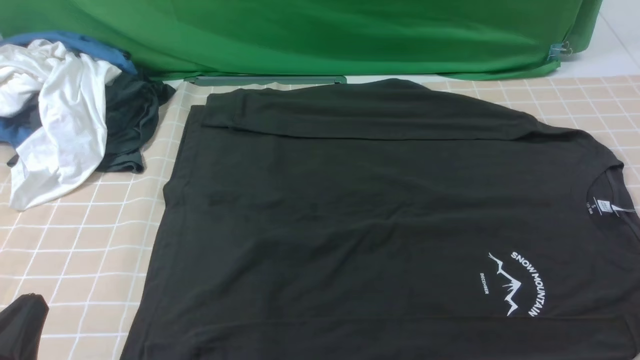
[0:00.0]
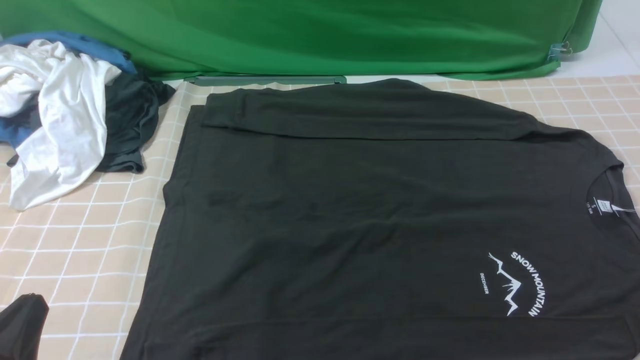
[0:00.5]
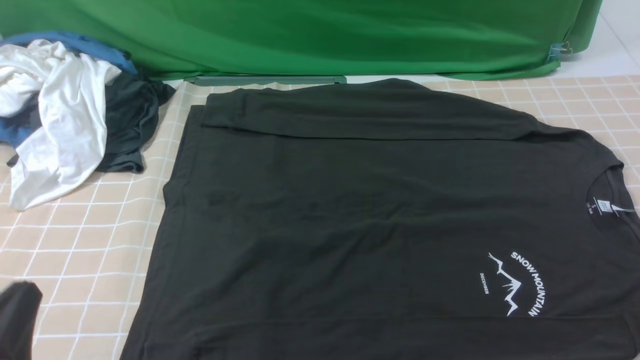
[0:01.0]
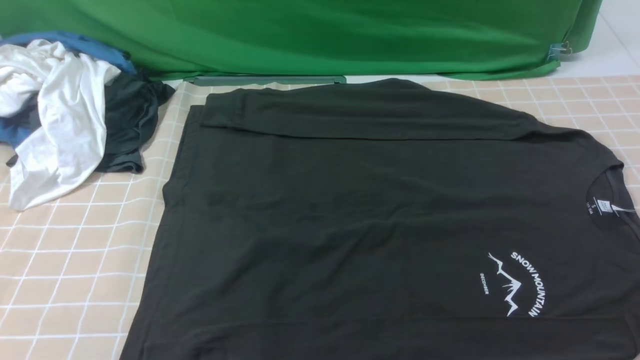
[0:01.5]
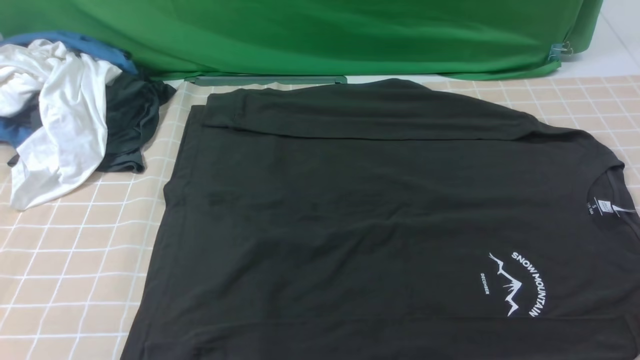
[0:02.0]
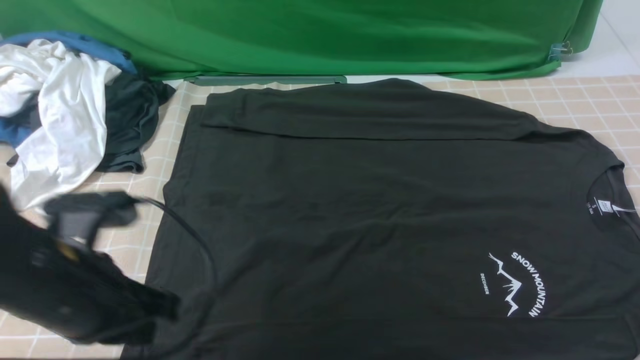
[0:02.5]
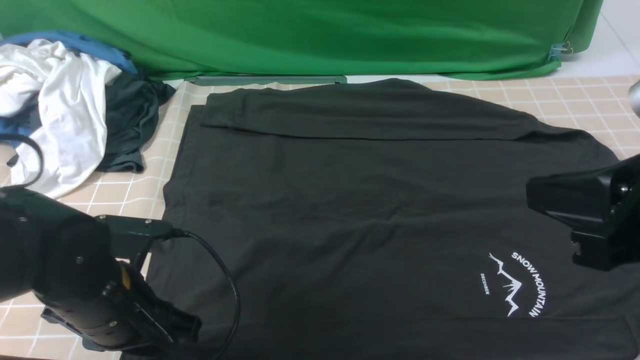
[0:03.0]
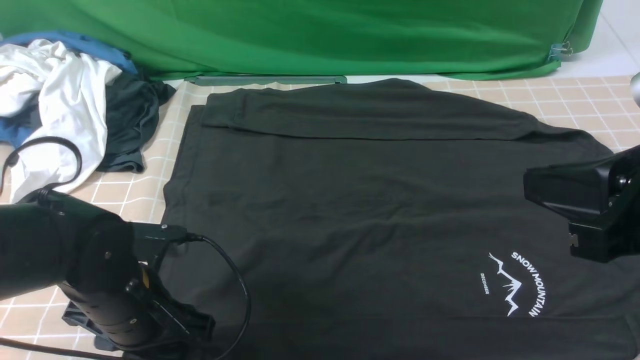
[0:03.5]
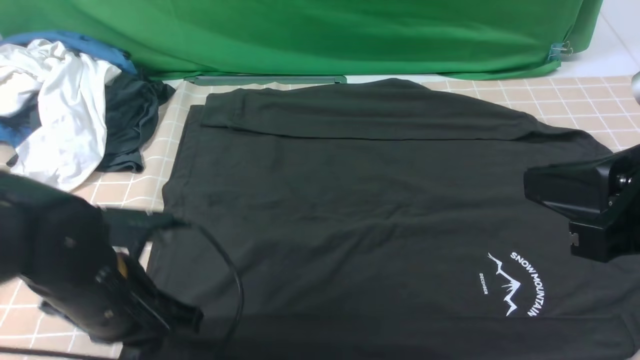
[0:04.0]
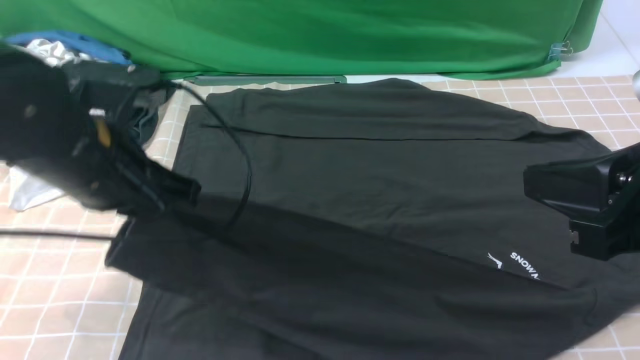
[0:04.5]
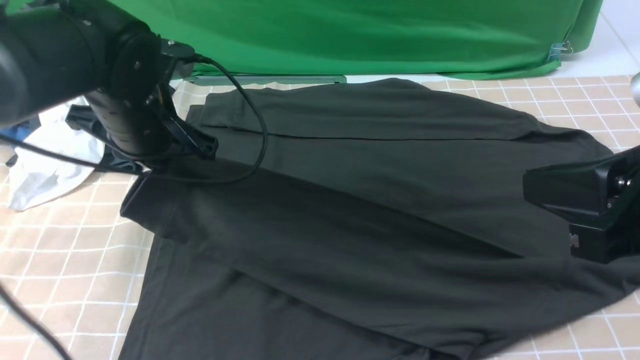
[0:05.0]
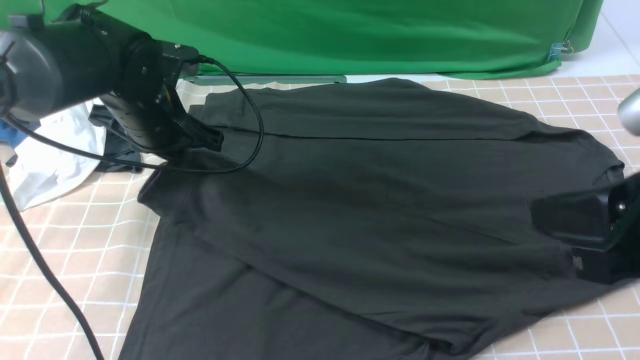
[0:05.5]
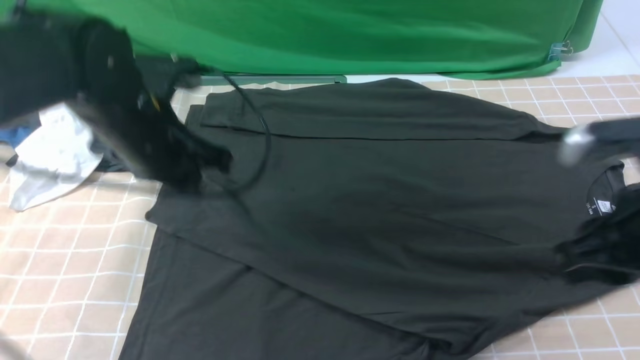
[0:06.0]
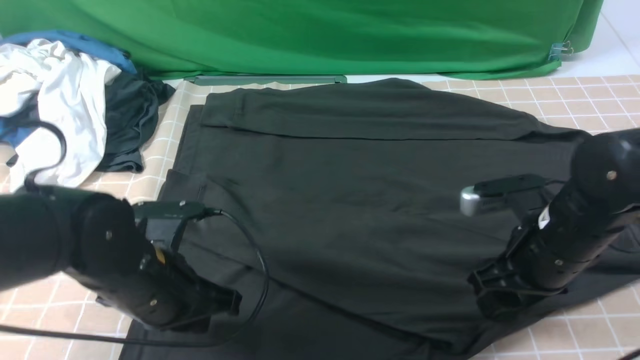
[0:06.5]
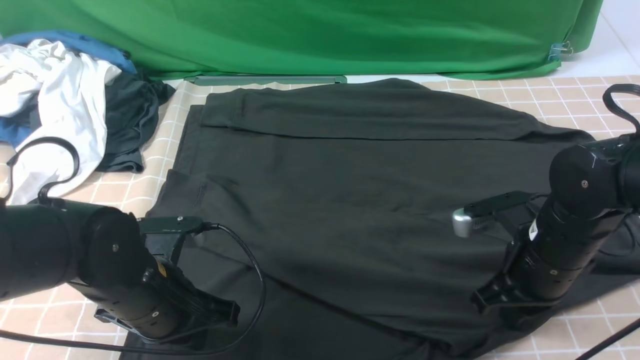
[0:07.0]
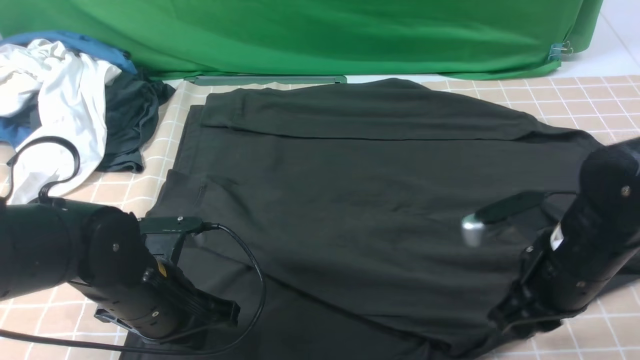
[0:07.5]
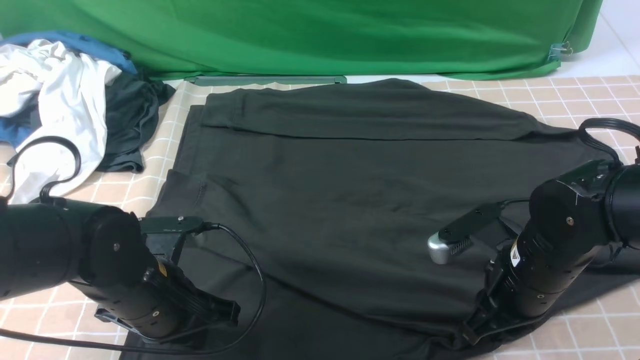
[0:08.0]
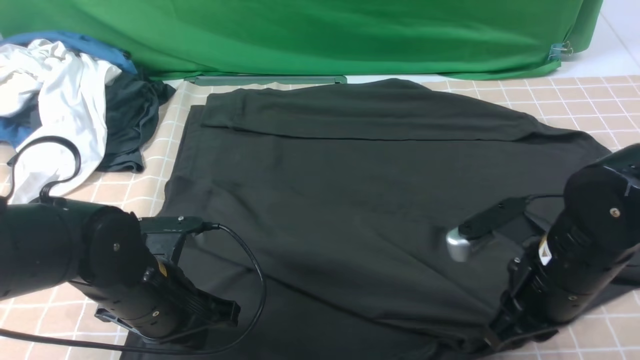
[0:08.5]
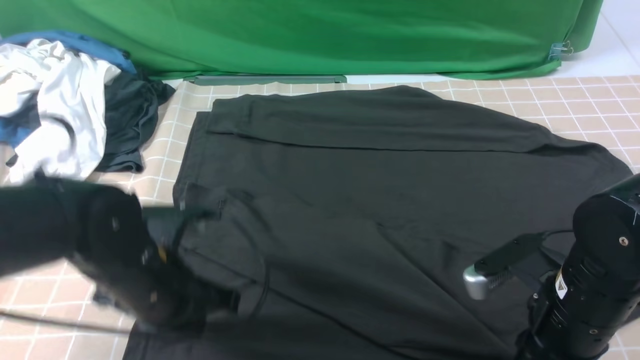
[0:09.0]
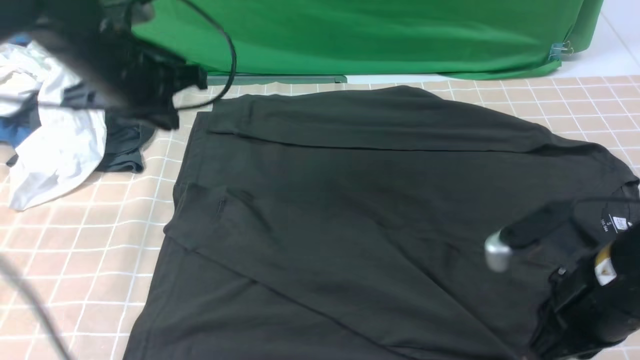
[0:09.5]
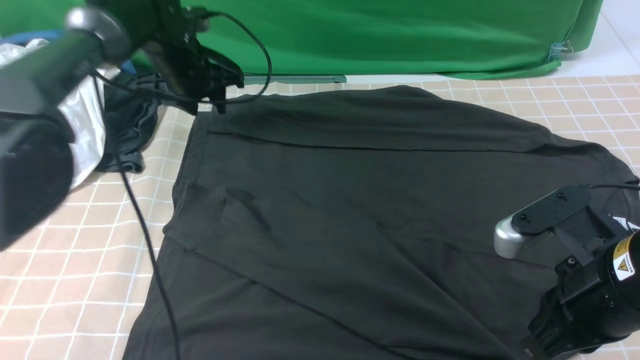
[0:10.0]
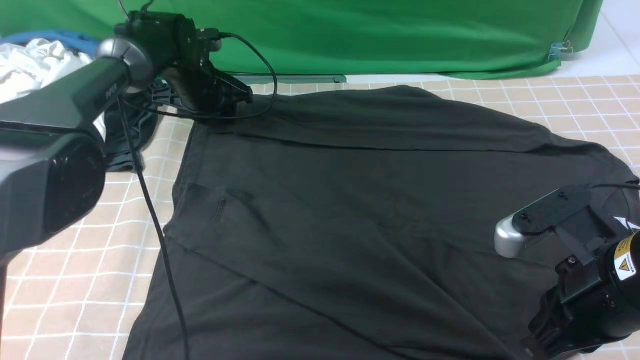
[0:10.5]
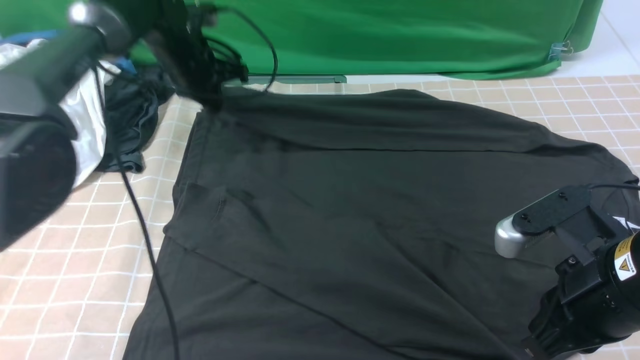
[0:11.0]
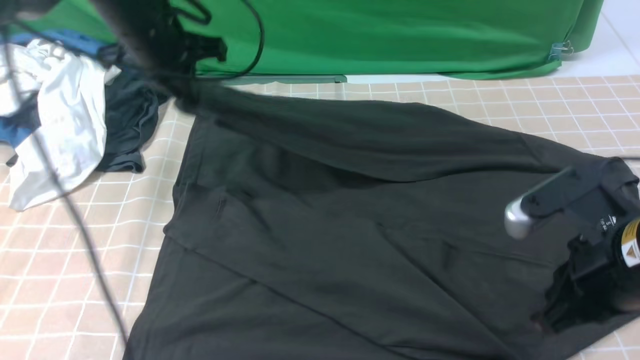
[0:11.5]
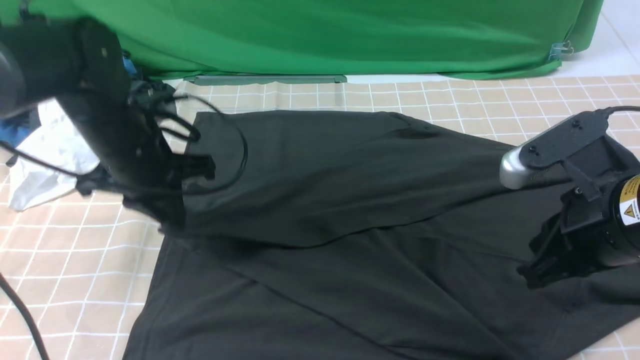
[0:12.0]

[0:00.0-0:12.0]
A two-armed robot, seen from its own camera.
Step, 0:00.0 to 0:03.5: use the left arm to clamp the cuff closest to it.
Step, 0:04.0 to 0:06.0: use the left arm to drag and place the cuff at the centered position on the left edge of the fabric.
Step, 0:06.5 to 0:10.5: use the left arm to clamp the cuff farthest from it.
0:00.0 to 0:02.0: The left gripper goes approximately 15 cm upward.
0:02.0 to 0:04.0: The left gripper is displaced downward, forward and to the right by about 20 cm, and opens, then closes again; the right gripper moves to the left, forward and upward, some 15 cm.
0:04.0 to 0:06.0: The right gripper goes about 10 cm downward and forward, and opens. The left gripper goes approximately 10 cm forward.
0:06.0 to 0:08.0: The right gripper moves downward and to the left, approximately 15 cm, and opens, then closes once more. The left gripper heads backward and downward, covering some 15 cm.
0:08.0 to 0:10.0: The right gripper heads upward and backward, covering about 10 cm, while the left gripper moves forward, roughly 30 cm, and opens its fingers.
0:10.0 to 0:12.0: The left gripper goes roughly 15 cm backward, and closes up.

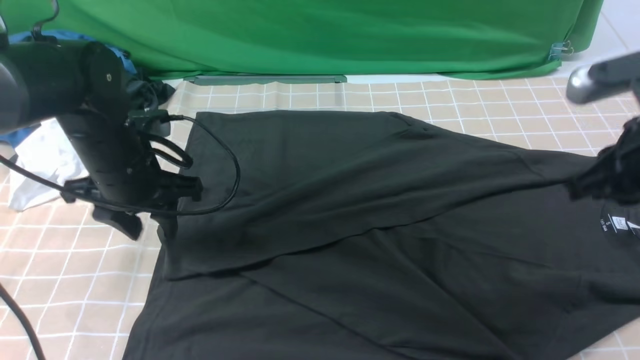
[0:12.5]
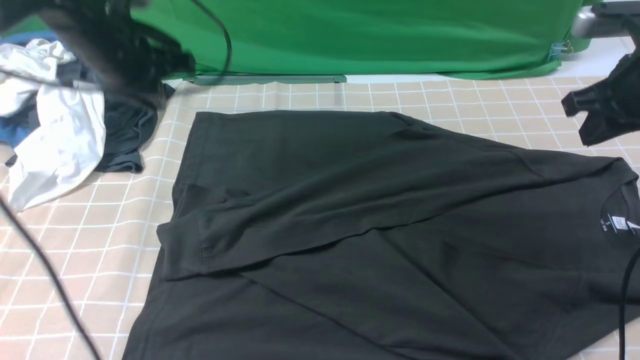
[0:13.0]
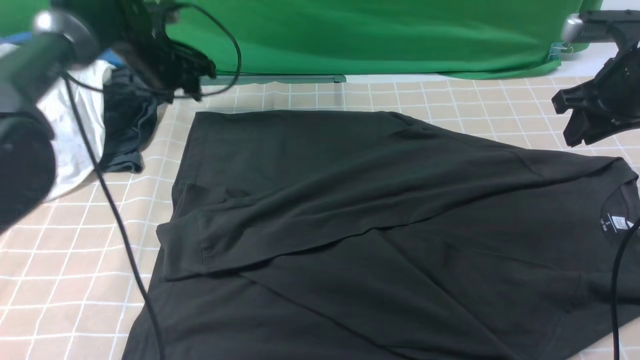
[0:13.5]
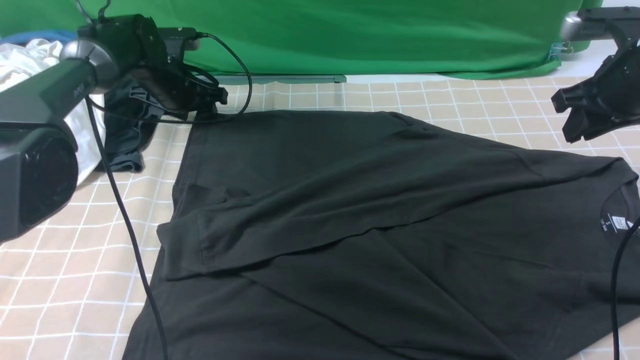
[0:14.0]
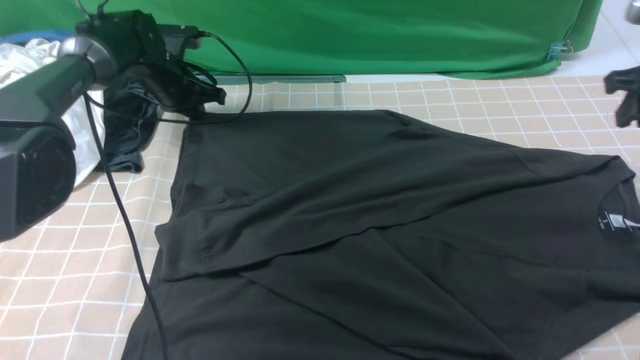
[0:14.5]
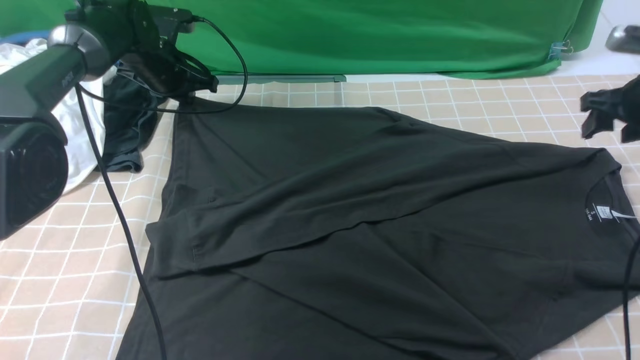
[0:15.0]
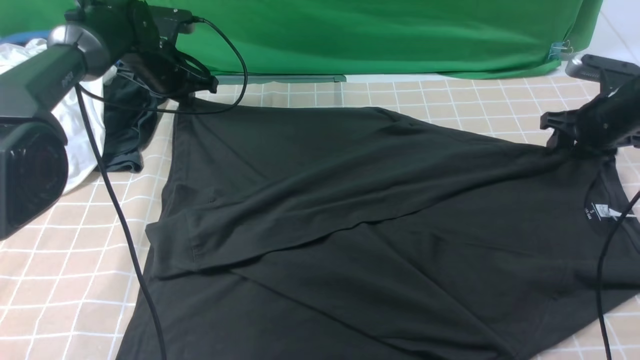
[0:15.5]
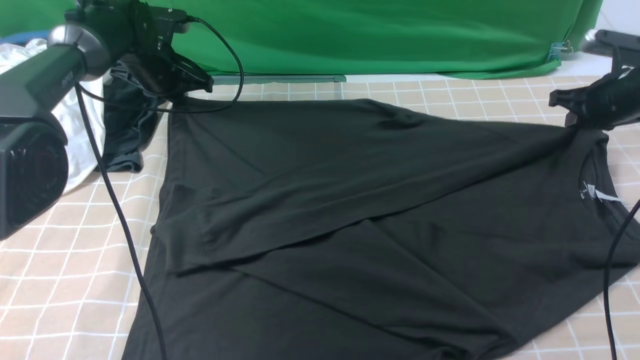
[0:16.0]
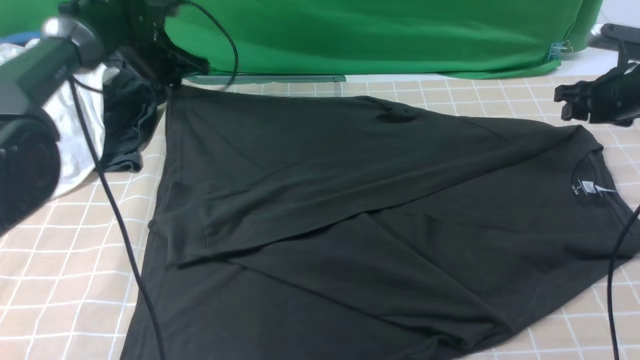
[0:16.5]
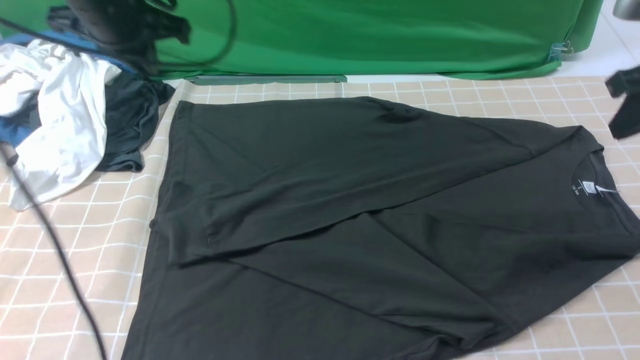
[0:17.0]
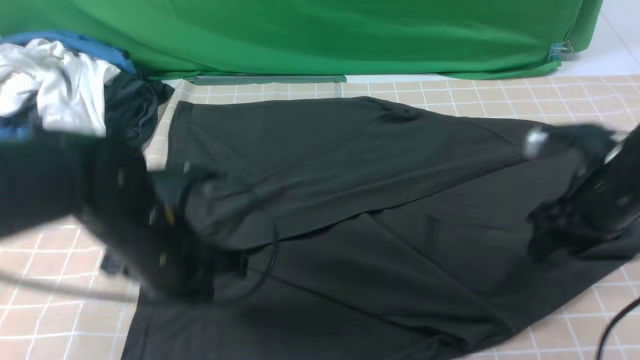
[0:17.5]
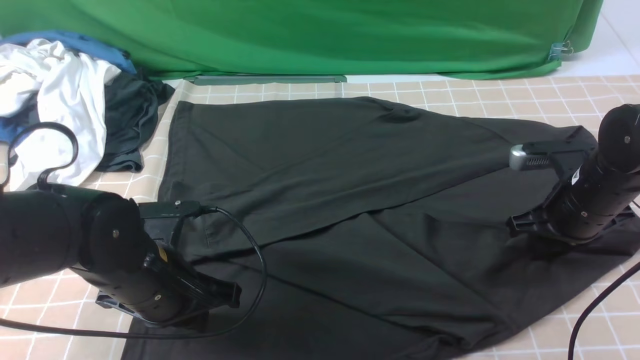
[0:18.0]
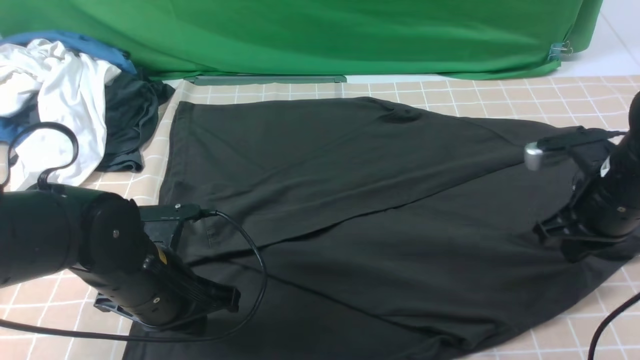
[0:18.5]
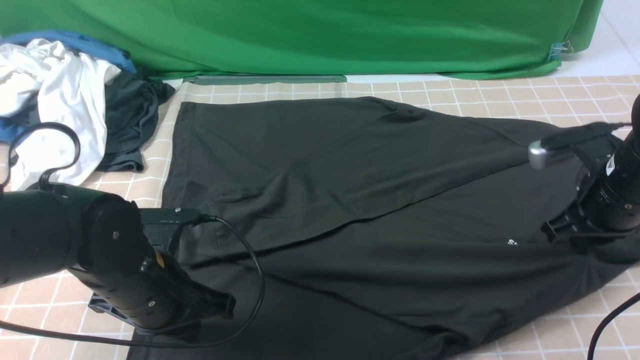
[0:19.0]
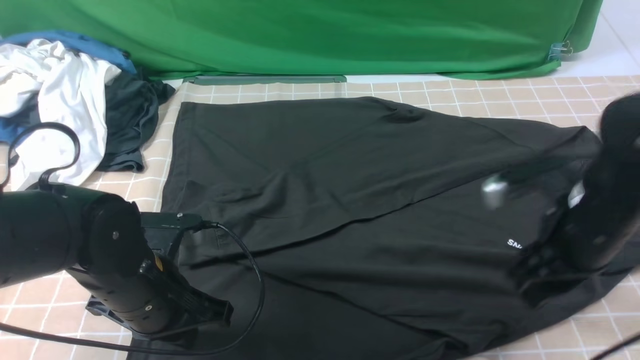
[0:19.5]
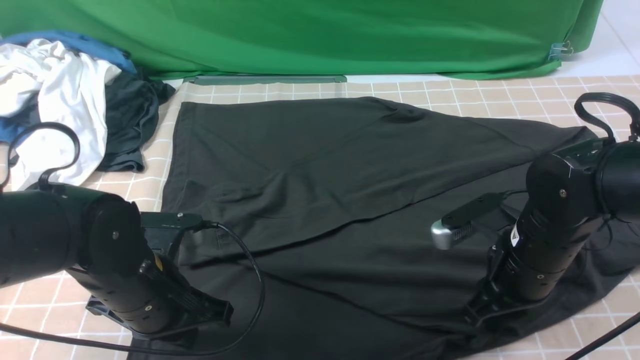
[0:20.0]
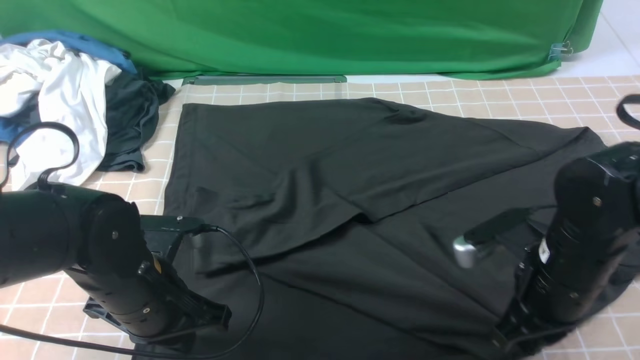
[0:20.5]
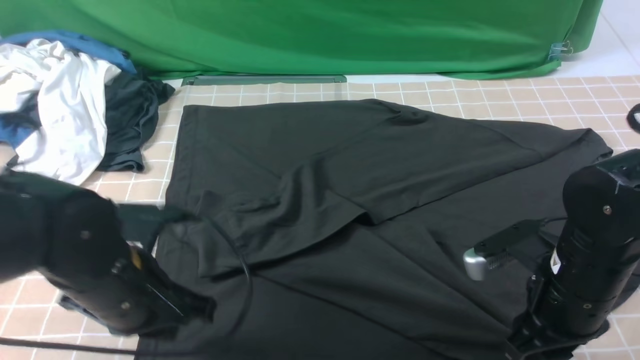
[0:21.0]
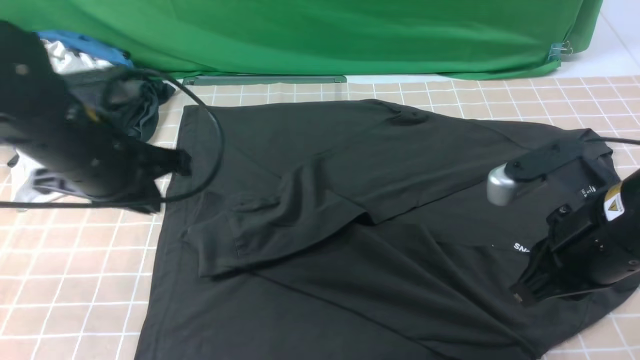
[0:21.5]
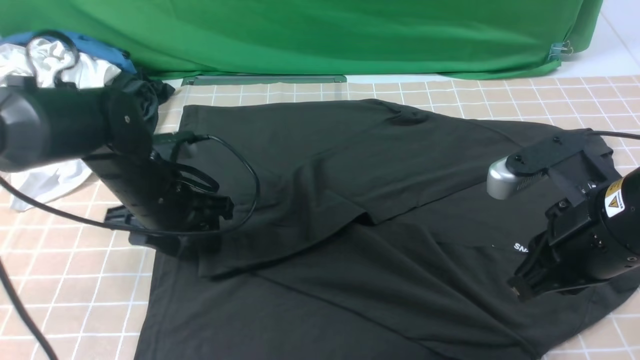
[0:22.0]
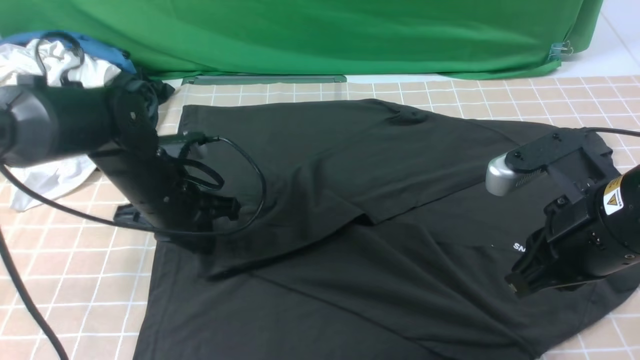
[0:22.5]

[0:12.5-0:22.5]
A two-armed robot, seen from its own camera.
0:12.5 to 0:14.5: The right gripper travels forward and to the right by about 20 cm, and opens; the left gripper heads forward, covering about 20 cm, and closes.
0:14.5 to 0:16.5: The right gripper goes approximately 10 cm downward and forward, and closes, then opens again, while the left gripper goes approximately 5 cm upward.
0:16.5 to 0:18.5: The right gripper goes roughly 20 cm backward and to the left, and closes. The left gripper travels backward by some 30 cm.
0:18.5 to 0:20.5: The right gripper goes roughly 10 cm to the left and backward, and opens and closes again.
0:20.5 to 0:22.5: The right gripper shifts approximately 10 cm upward, and opens and closes again, while the left gripper heads forward, covering some 10 cm, and opens and closes again.
